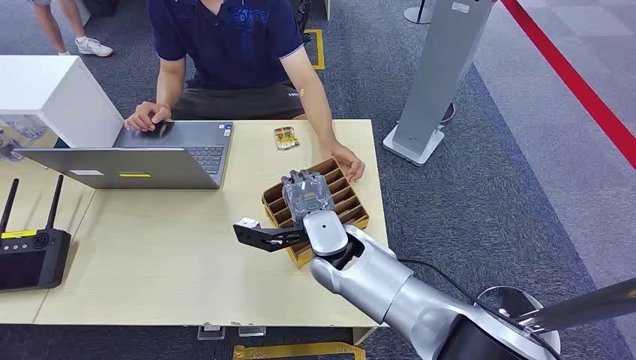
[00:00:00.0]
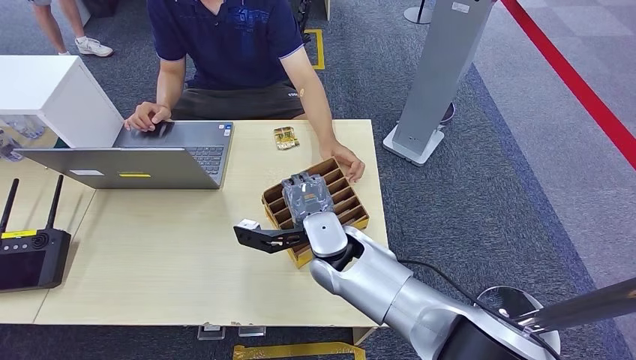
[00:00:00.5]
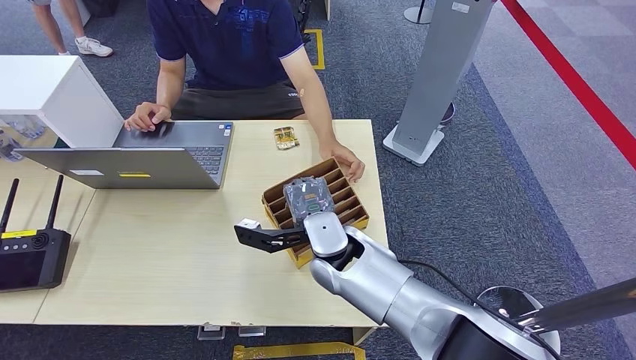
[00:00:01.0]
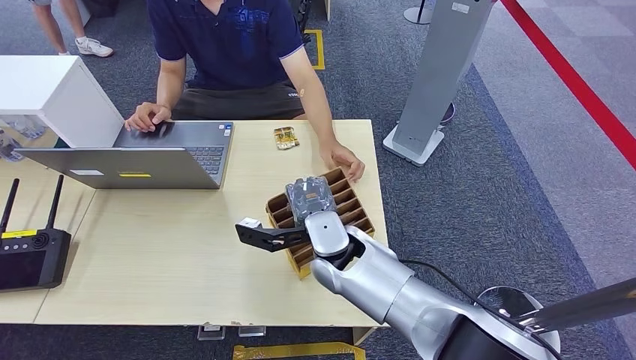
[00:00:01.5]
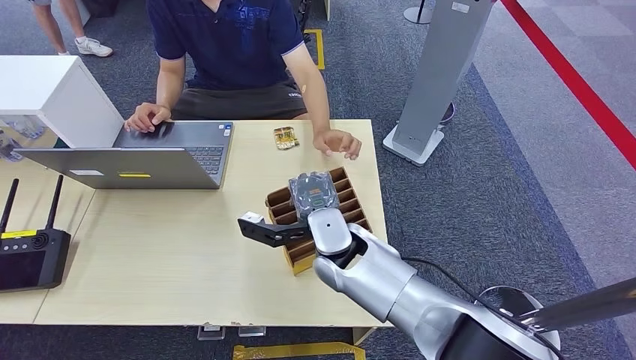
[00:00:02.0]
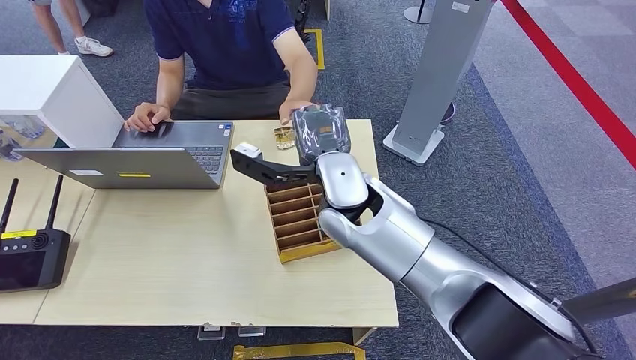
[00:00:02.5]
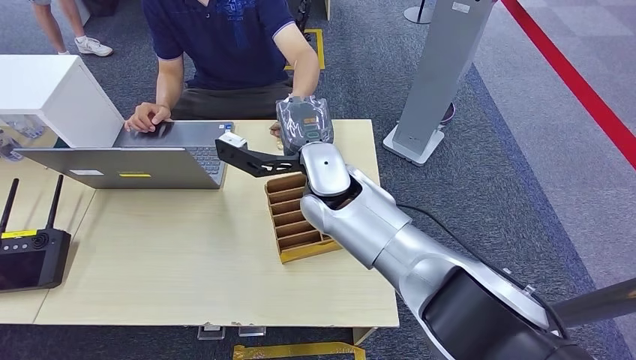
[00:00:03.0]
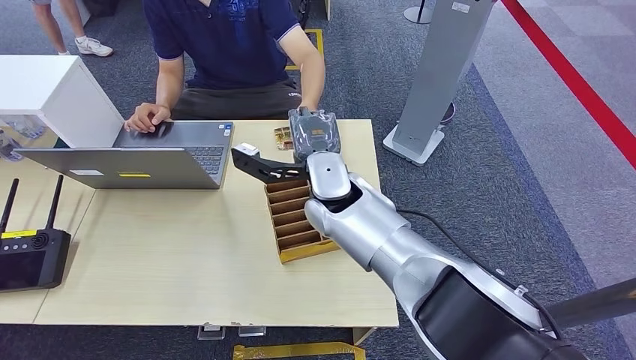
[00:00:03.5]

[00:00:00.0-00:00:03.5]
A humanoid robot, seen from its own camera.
Step, 00:00:02.5 to 00:00:03.0: Hand the room card to the target.
00:00:02.0 to 00:00:03.5: The right hand is displaced upward and forward by roughly 10 cm.
